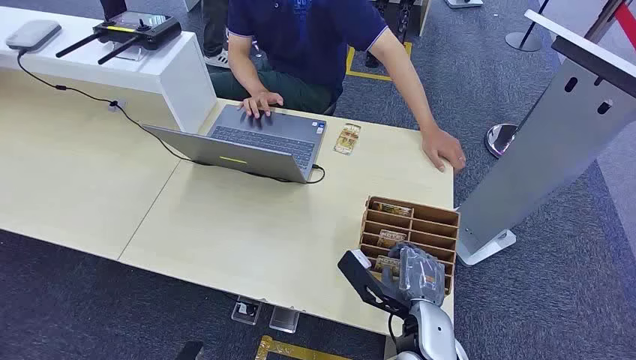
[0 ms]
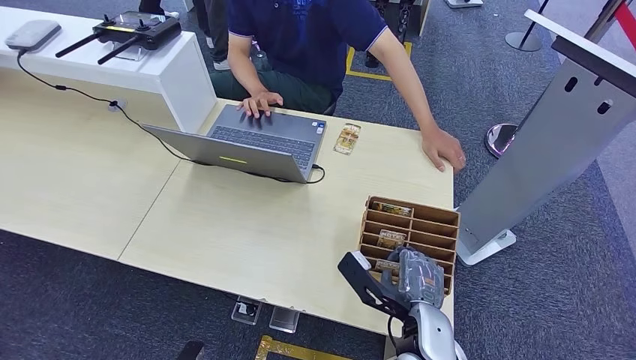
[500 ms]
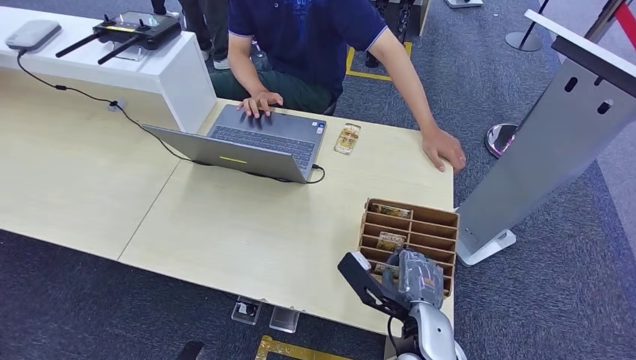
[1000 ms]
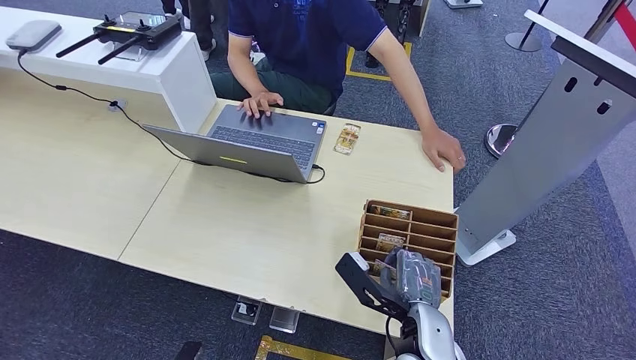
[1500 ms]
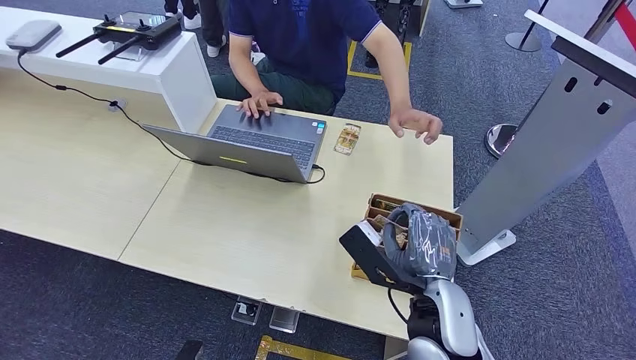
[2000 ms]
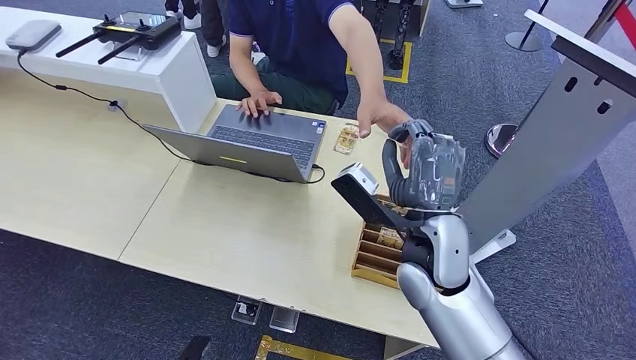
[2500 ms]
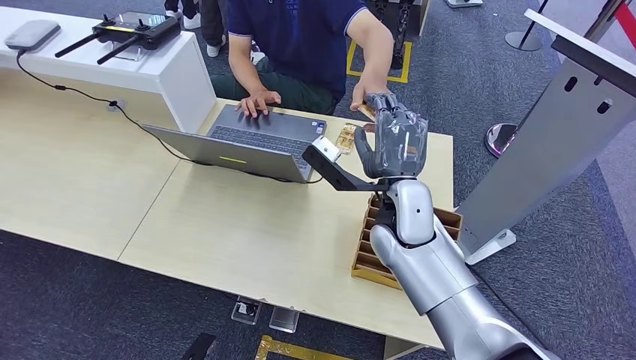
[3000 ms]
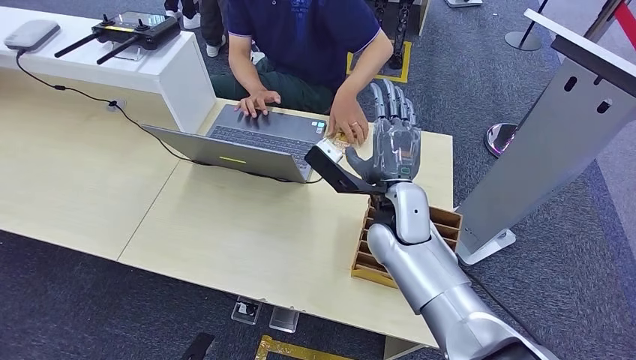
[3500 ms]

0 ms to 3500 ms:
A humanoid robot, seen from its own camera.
Step, 0 ms to 2000 ms: Pick up the room card from the card holder.
Step, 3000 ms to 3500 ms: Hand the room card to the target.
2000 ms to 3500 ms: The right hand heads forward and to the left, covering some 15 cm.
